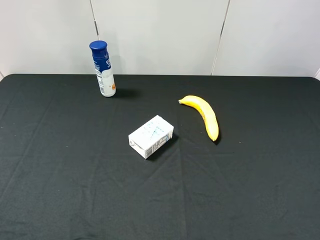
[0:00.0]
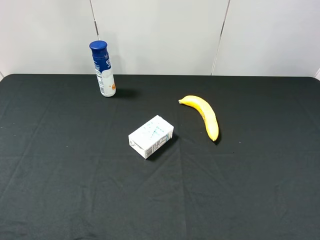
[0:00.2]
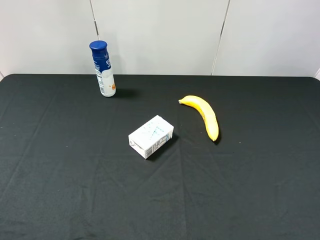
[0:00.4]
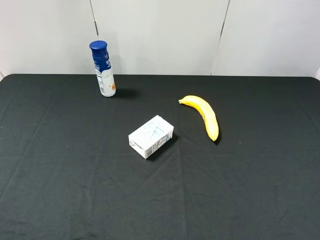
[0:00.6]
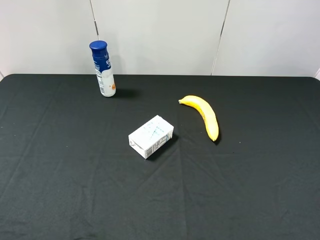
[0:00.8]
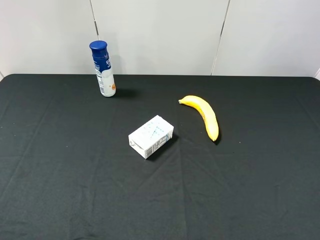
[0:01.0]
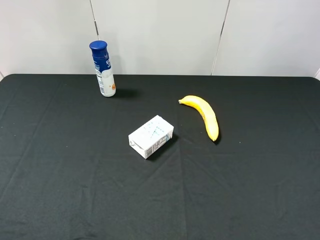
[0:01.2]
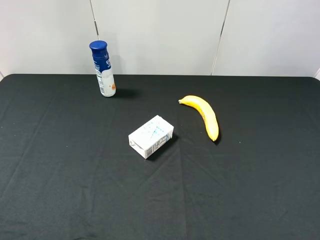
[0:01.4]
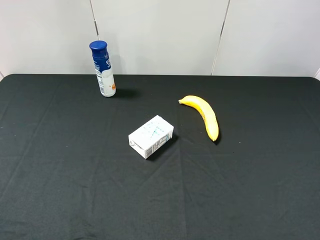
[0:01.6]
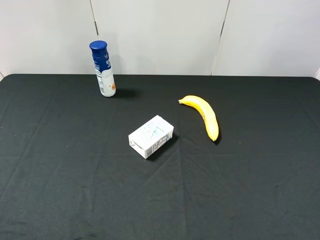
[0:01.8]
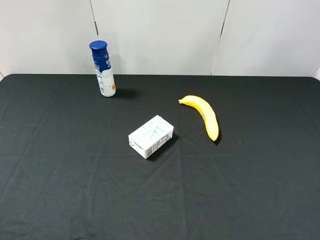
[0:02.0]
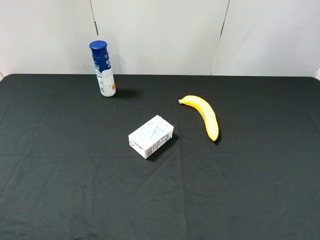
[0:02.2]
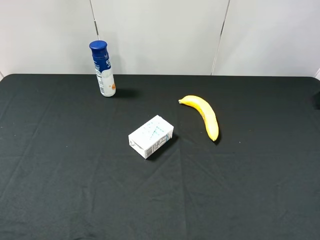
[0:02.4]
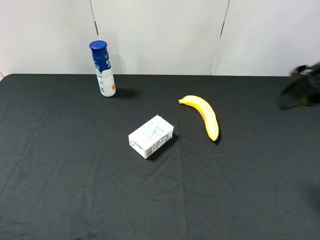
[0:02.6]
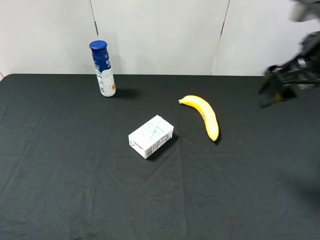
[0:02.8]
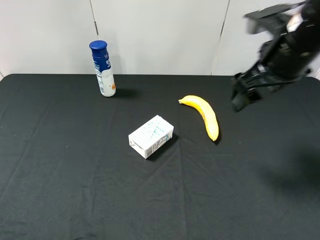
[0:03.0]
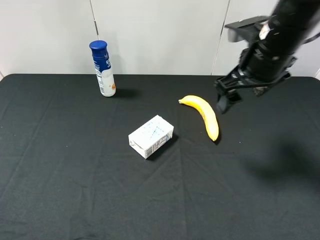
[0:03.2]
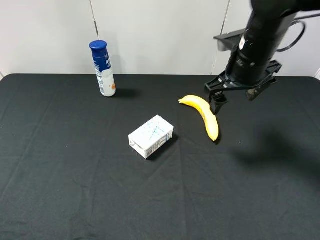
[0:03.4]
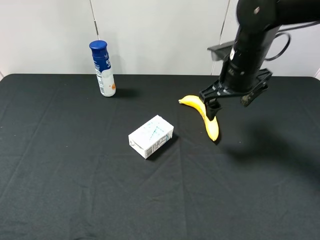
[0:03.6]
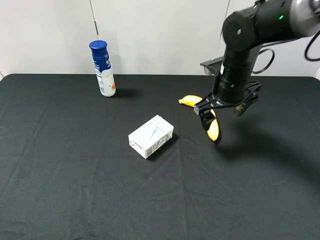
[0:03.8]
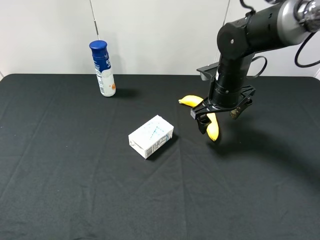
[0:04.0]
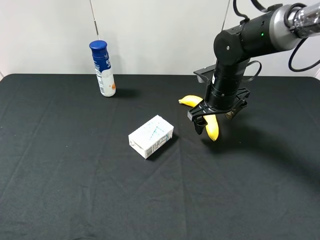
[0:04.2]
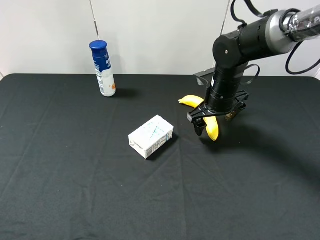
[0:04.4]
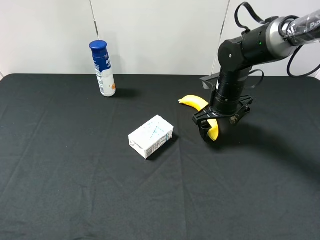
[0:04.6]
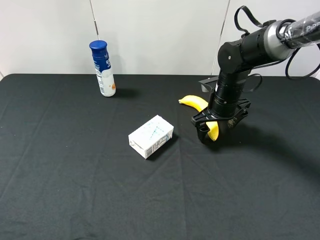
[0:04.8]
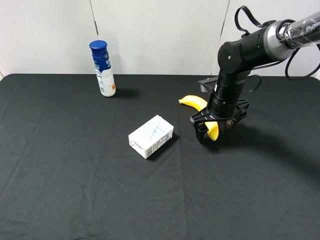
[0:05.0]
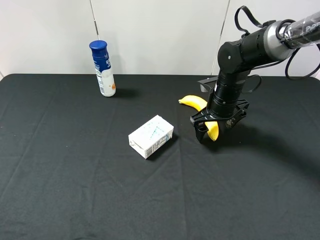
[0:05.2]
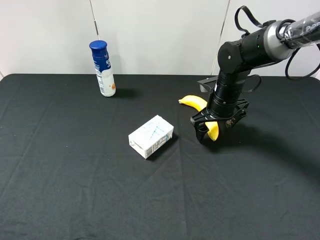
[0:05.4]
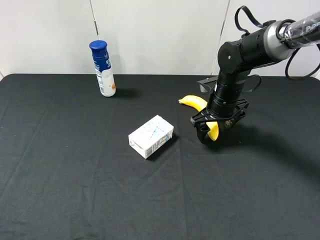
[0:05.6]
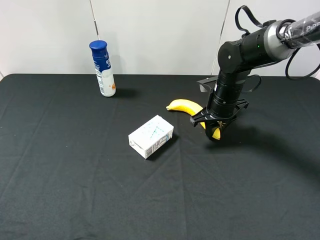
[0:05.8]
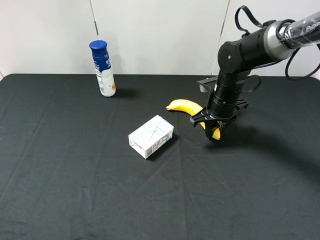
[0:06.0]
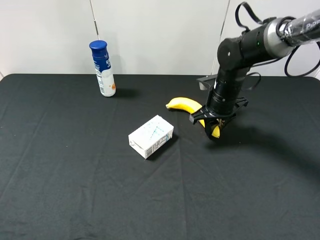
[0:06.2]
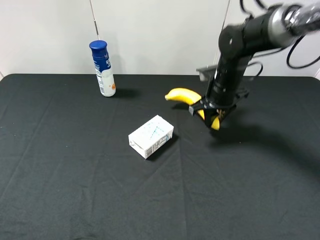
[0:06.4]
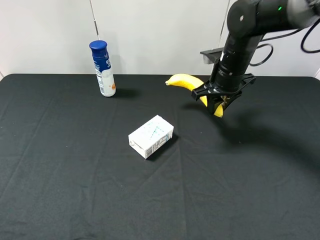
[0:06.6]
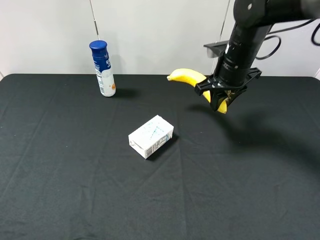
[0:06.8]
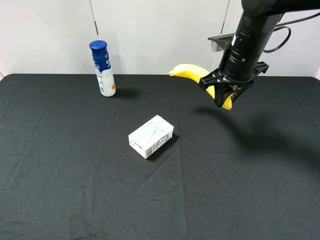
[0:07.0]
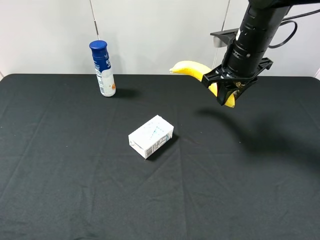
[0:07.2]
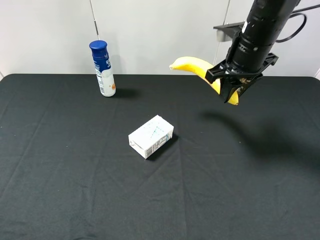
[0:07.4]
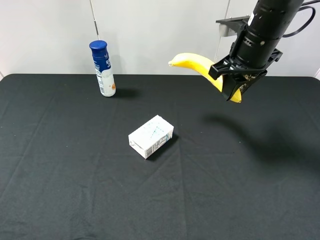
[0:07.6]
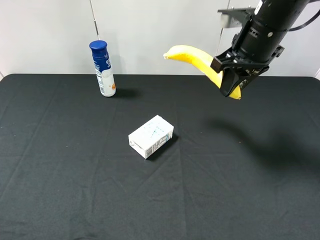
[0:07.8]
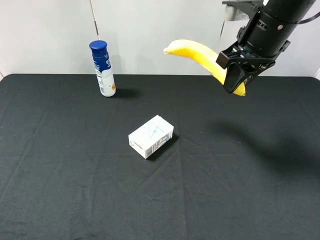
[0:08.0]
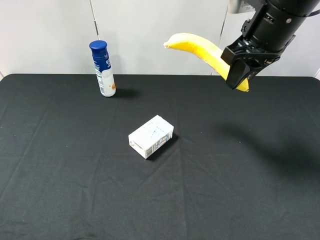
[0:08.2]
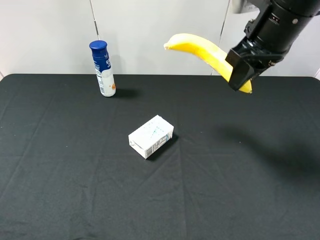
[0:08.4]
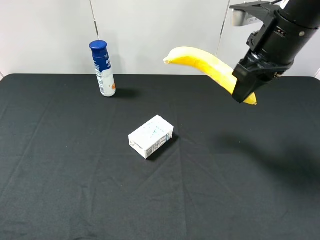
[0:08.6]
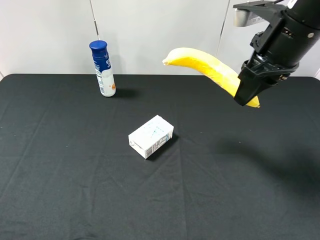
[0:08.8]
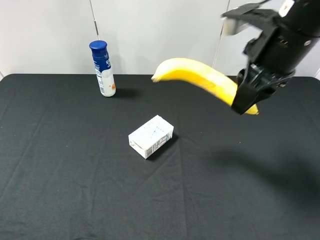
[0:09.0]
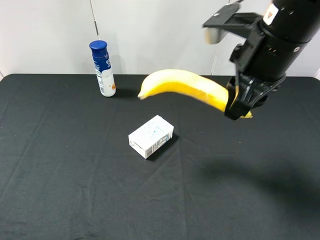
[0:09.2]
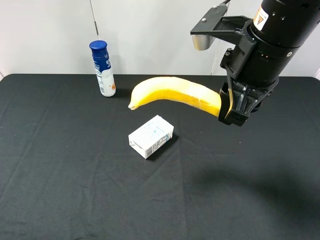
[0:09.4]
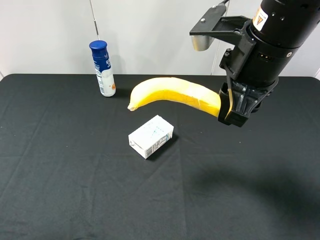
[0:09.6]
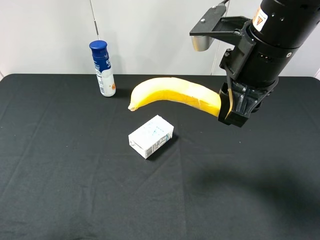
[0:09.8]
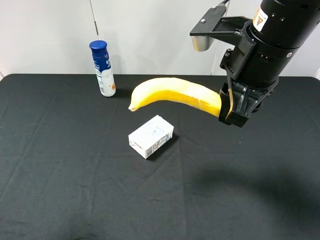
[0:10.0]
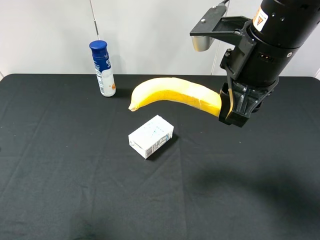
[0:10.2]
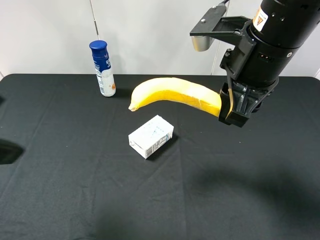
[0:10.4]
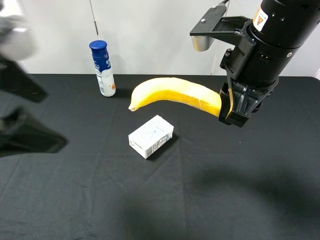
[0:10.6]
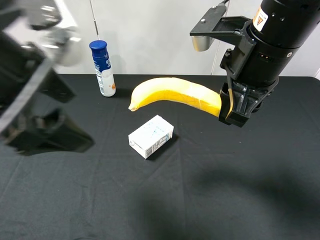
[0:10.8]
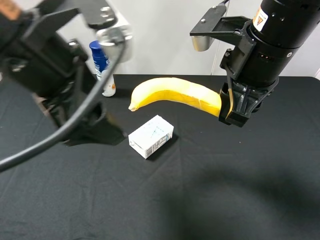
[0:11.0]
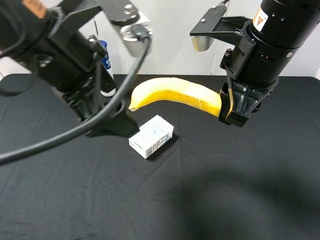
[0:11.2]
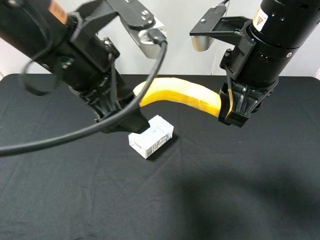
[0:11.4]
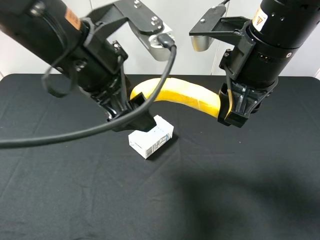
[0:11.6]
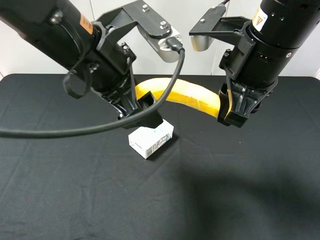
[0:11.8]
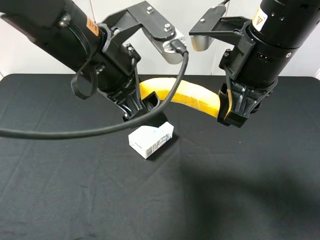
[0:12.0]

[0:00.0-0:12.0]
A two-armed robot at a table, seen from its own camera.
Task of the whole recording: use the right gripper to pick up the item and transfer it from the right gripper to the left gripper.
Step, 0:00.0 to 0:05.6: Use the right gripper to grab the banana on the right side of the table.
0:00.0 to 0:01.6: The two grippers keep their place.
0:01.6 to 0:03.0: The right gripper moves forward and to the left, roughly 30 cm.
0:03.0 to 0:04.4: The right gripper heads downward and forward, covering some 15 cm.
0:04.4 to 0:06.0: The right gripper closes.
0:06.0 to 0:07.6: The right gripper goes about 15 cm upward.
0:07.6 to 0:09.0: The right gripper heads backward, covering approximately 10 cm.
0:09.0 to 0:10.4: The left gripper shifts approximately 15 cm forward, to the right and upward.
0:10.4 to 0:12.0: The left gripper travels to the right and forward by approximately 20 cm.

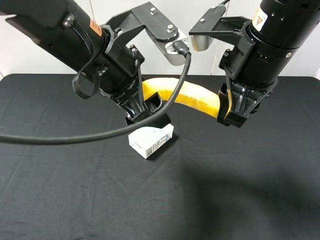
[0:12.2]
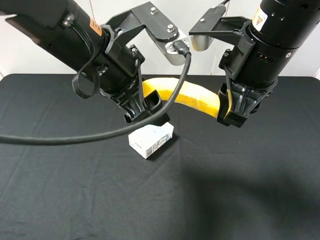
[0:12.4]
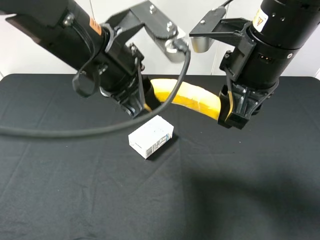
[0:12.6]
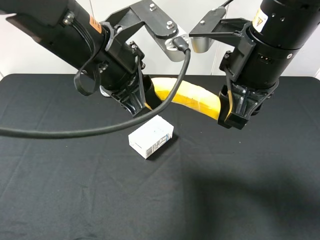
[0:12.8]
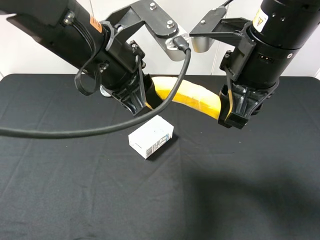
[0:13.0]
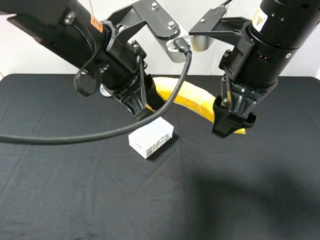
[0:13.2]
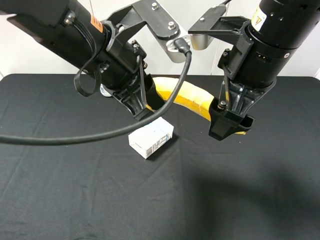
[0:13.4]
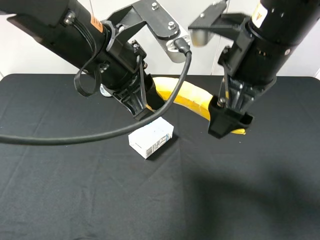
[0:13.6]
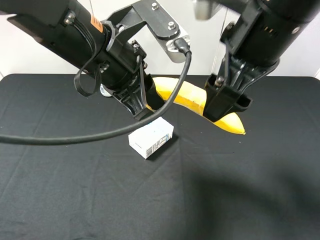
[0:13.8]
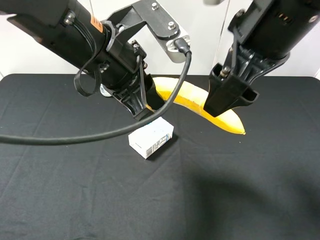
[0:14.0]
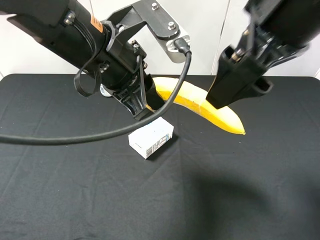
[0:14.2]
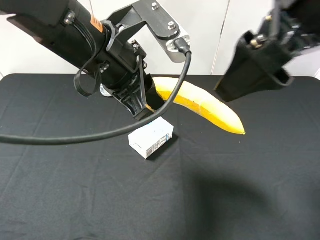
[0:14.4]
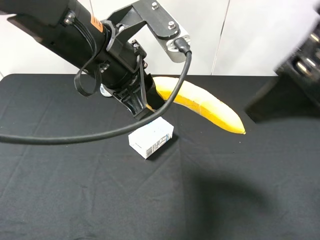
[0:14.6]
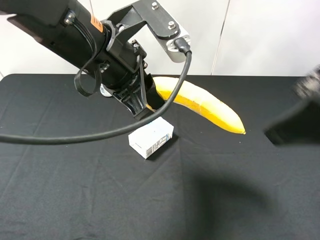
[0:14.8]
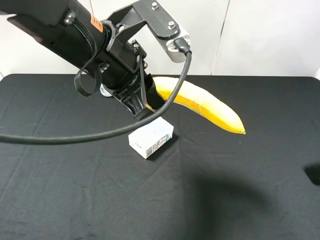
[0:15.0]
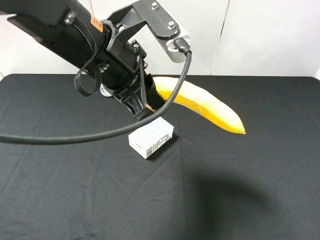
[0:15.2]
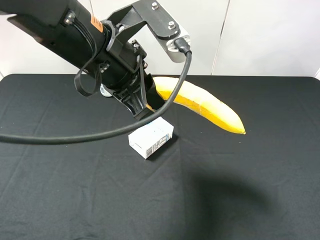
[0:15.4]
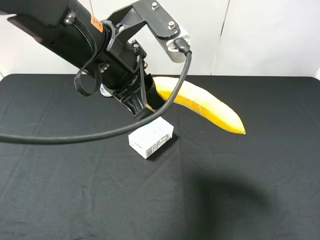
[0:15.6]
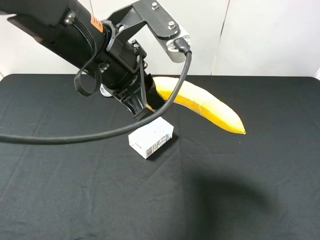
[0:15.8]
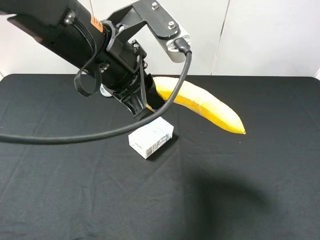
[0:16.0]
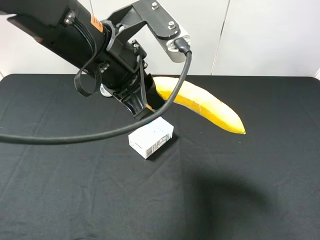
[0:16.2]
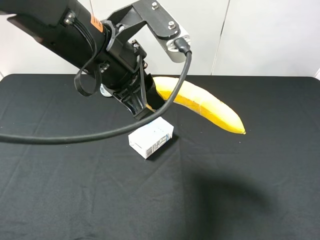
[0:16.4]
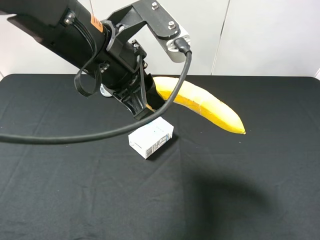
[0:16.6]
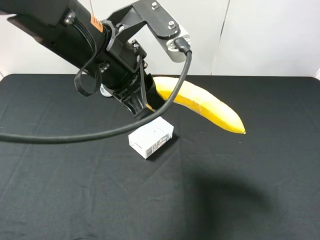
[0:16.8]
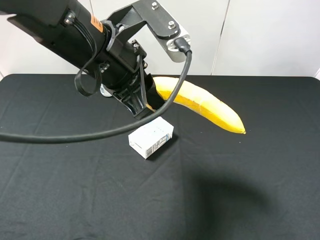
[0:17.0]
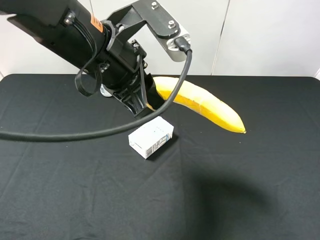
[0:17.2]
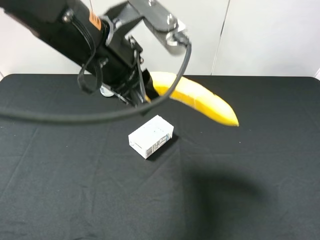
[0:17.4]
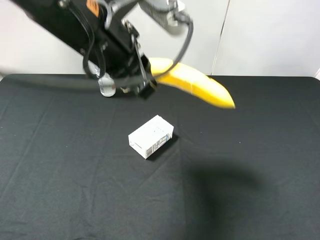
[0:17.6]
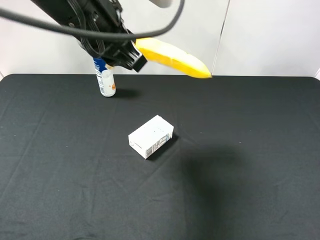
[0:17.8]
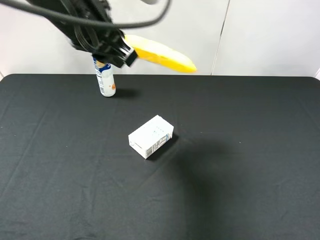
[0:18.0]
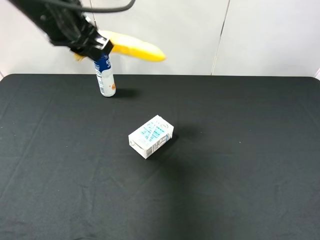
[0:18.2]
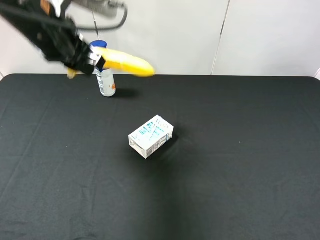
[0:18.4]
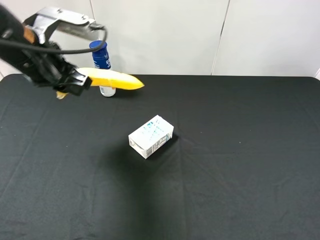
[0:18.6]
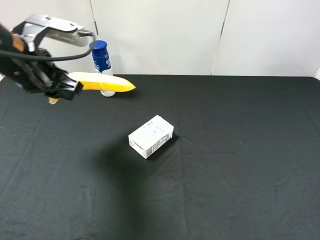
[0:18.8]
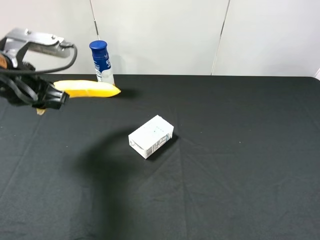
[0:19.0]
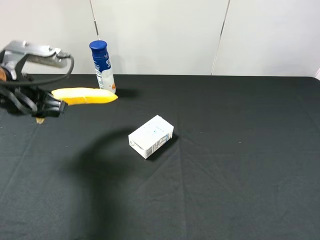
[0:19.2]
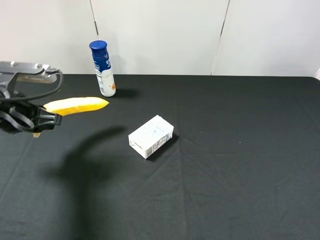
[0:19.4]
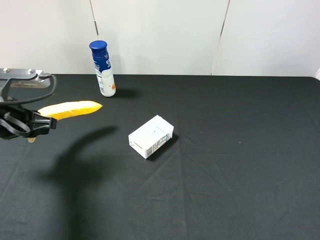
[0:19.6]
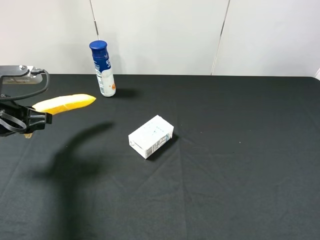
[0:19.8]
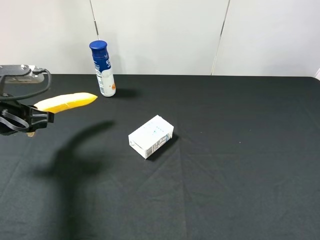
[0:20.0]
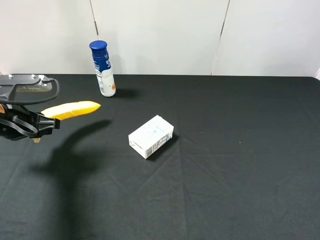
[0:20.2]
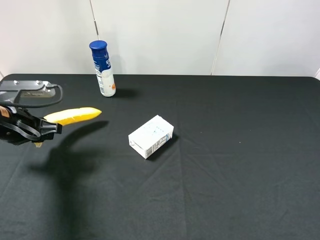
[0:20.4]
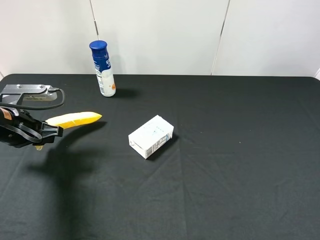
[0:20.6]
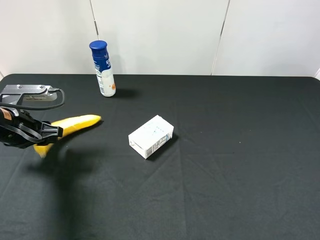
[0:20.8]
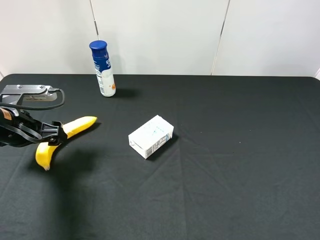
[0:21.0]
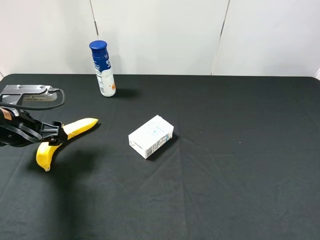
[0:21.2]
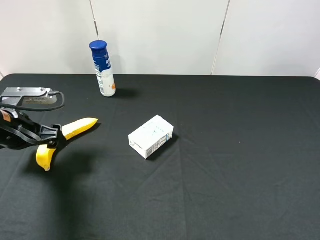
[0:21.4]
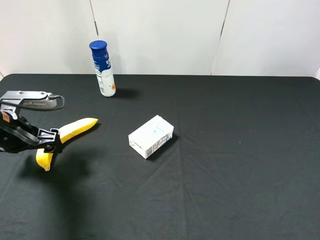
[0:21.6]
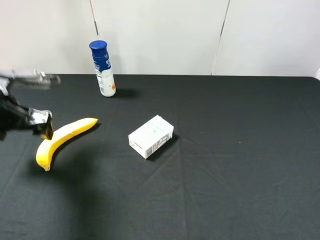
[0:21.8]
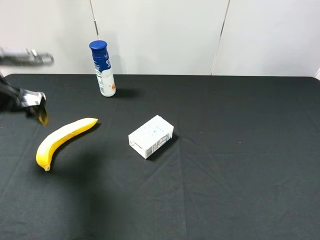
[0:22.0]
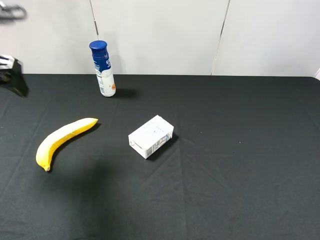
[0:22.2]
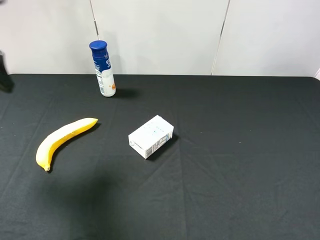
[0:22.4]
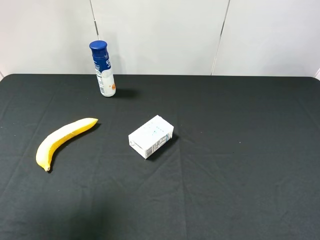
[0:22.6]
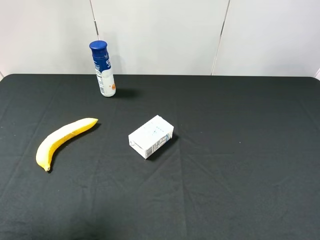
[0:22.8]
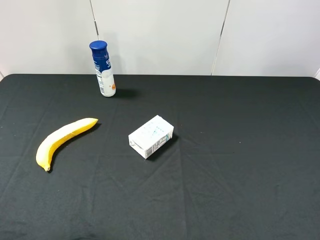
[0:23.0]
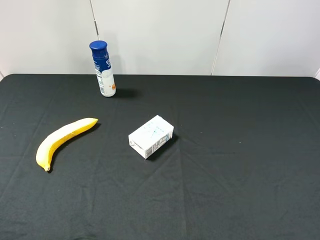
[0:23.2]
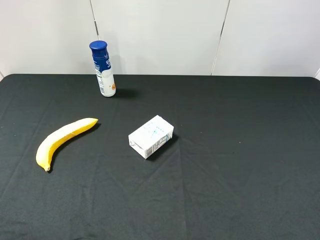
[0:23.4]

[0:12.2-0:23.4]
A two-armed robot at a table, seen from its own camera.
Task of the whole recording: use the right gripper to pick up the item and transfer it from the right gripper to the left gripper.
Step, 0:13.4 to 0:21.6: The left gripper places banana on the left side of the table.
0:12.2 to 0:13.8: The left gripper closes its fingers. Meanwhile the right gripper opens.
0:13.8 to 0:15.4: The right gripper heads backward and to the right, covering roughly 25 cm.
0:17.0 to 0:18.6: The left gripper goes approximately 10 cm to the left.
0:18.6 to 0:20.2: The left gripper shifts roughly 15 cm downward and to the left.
0:20.2 to 0:21.8: The left gripper opens.
0:21.8 to 0:23.4: The left gripper goes approximately 20 cm backward.
